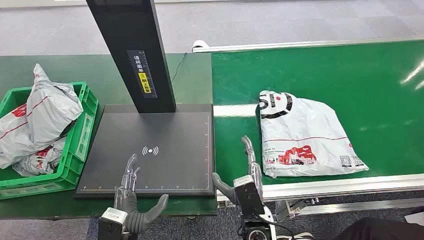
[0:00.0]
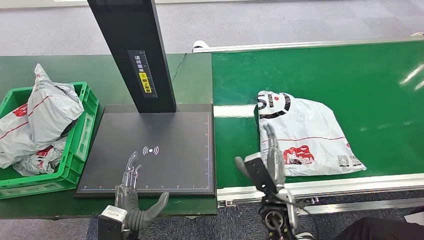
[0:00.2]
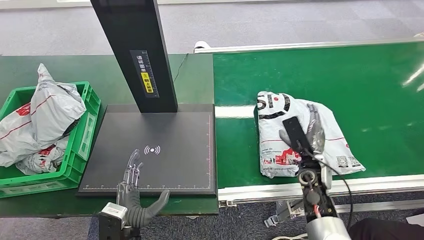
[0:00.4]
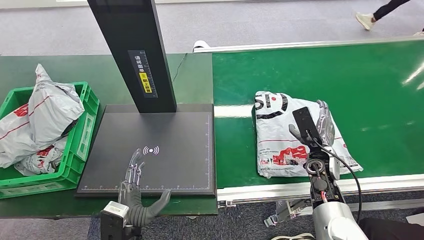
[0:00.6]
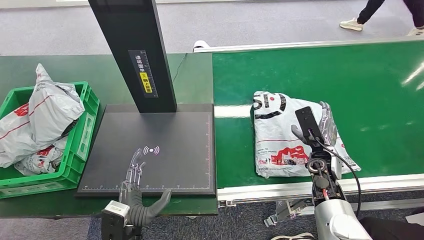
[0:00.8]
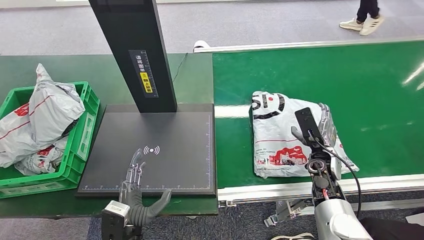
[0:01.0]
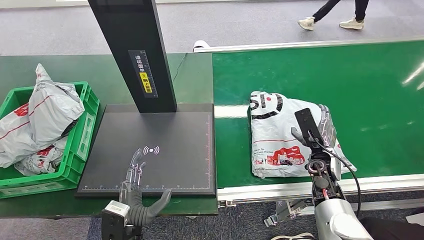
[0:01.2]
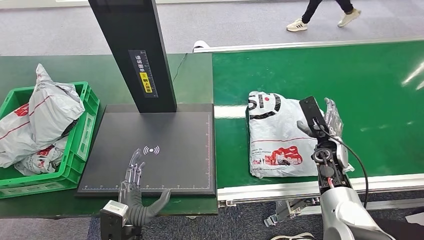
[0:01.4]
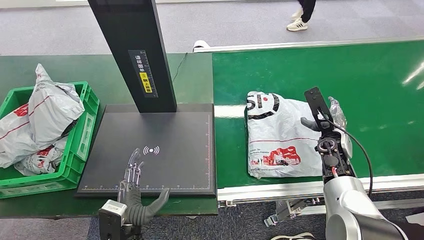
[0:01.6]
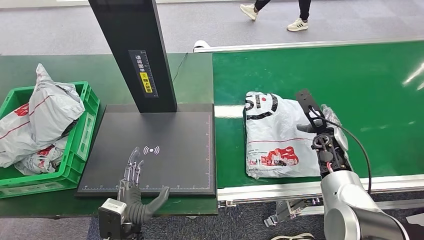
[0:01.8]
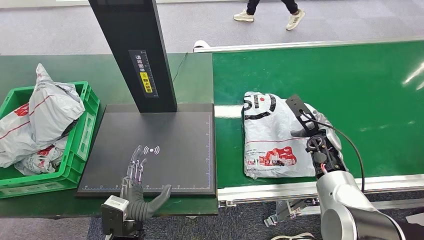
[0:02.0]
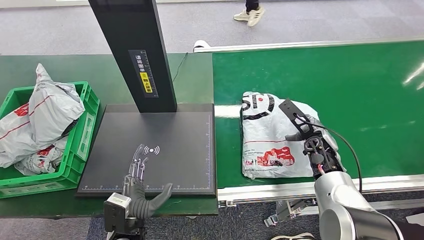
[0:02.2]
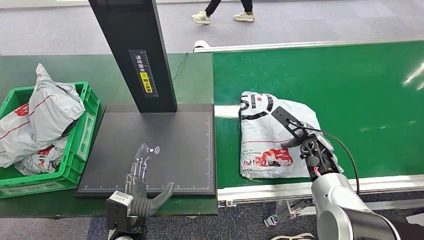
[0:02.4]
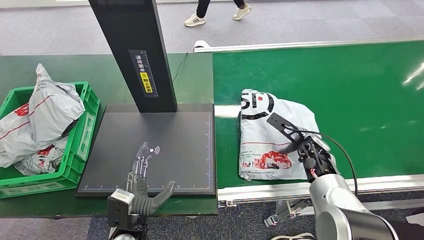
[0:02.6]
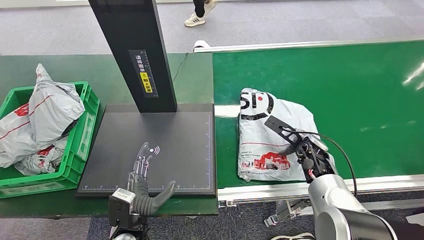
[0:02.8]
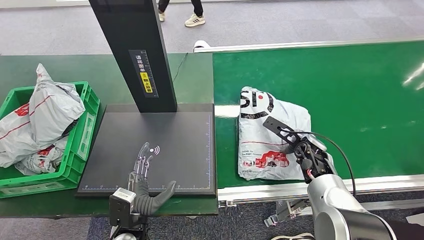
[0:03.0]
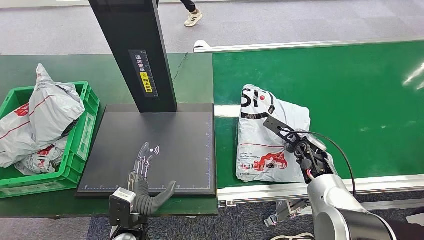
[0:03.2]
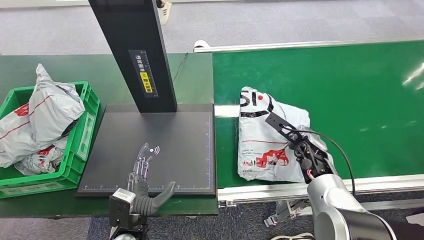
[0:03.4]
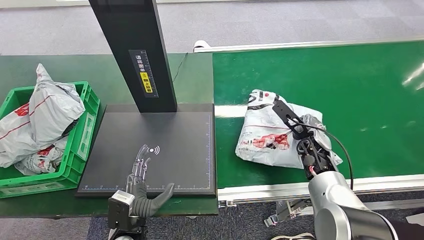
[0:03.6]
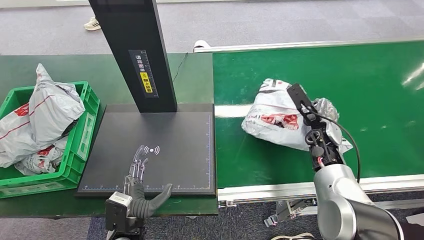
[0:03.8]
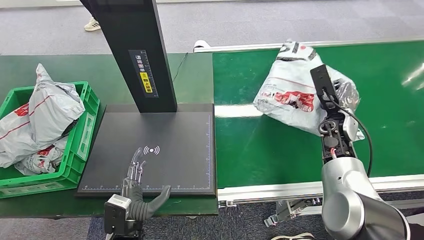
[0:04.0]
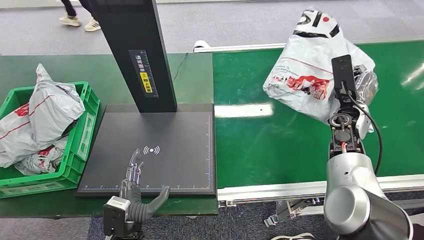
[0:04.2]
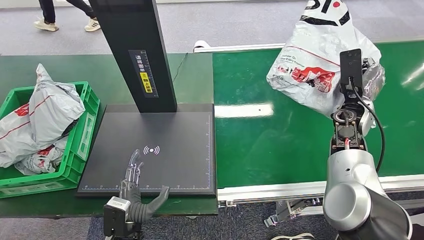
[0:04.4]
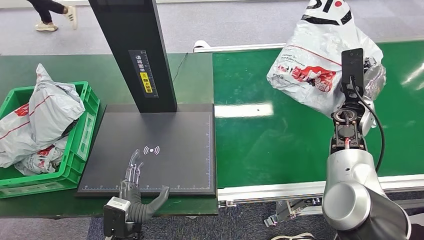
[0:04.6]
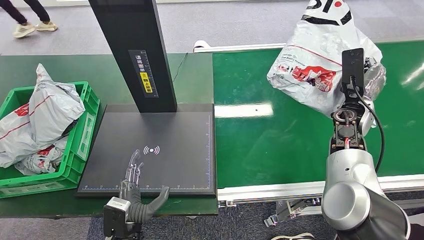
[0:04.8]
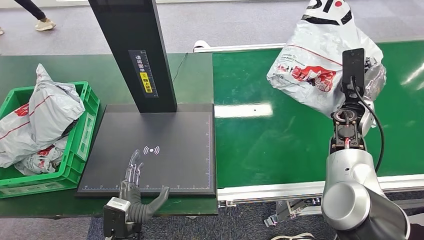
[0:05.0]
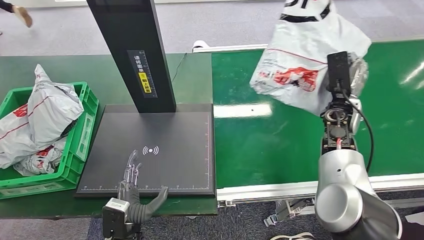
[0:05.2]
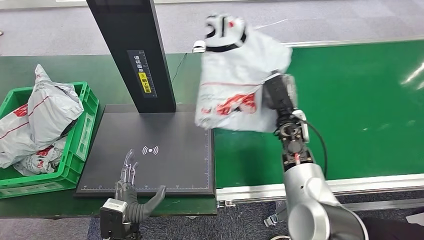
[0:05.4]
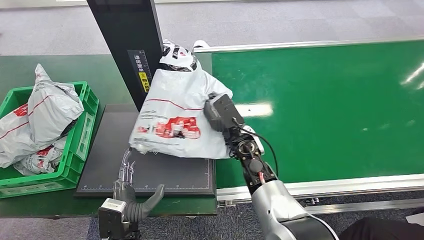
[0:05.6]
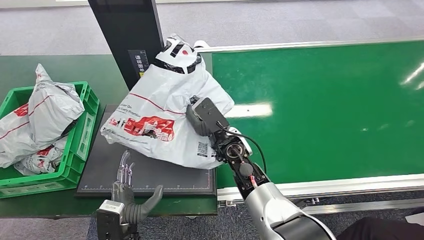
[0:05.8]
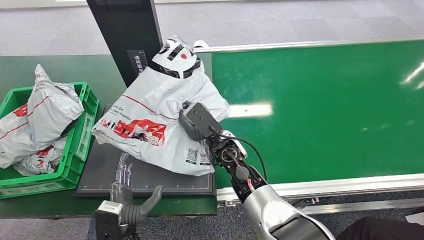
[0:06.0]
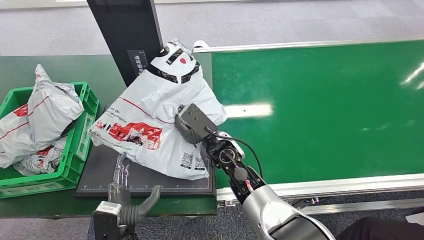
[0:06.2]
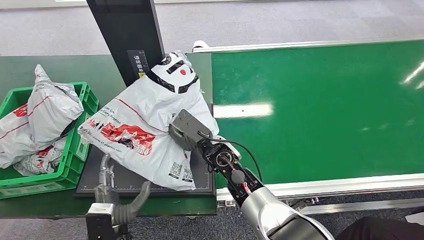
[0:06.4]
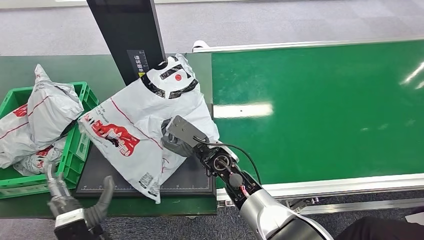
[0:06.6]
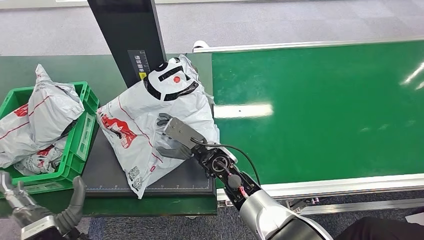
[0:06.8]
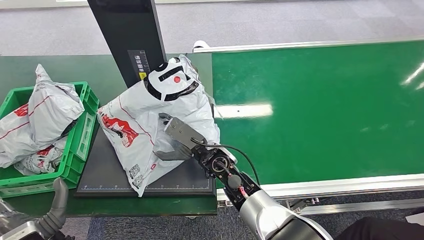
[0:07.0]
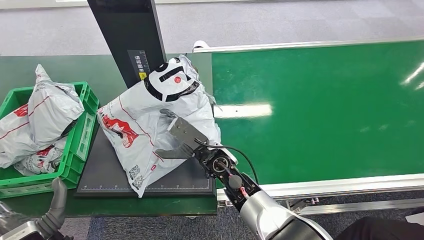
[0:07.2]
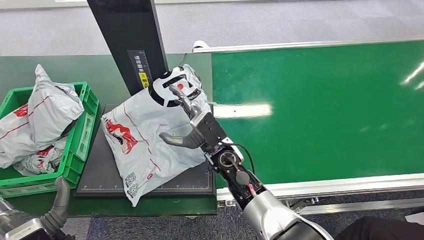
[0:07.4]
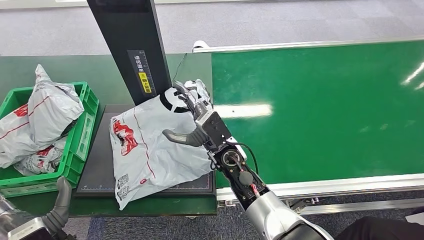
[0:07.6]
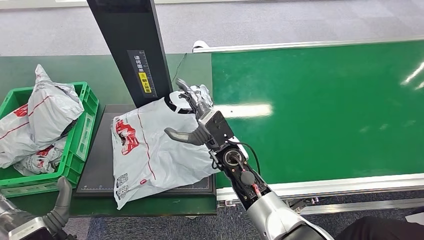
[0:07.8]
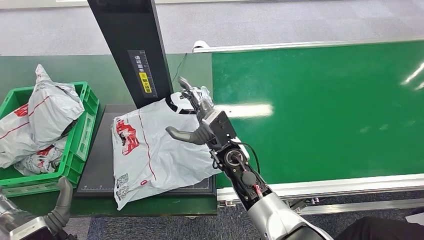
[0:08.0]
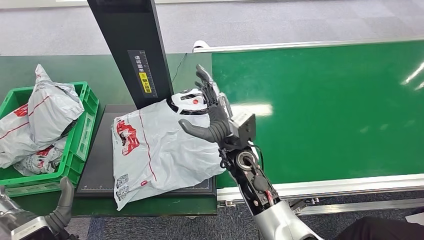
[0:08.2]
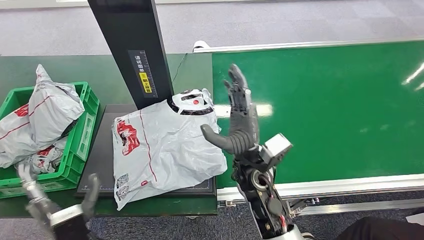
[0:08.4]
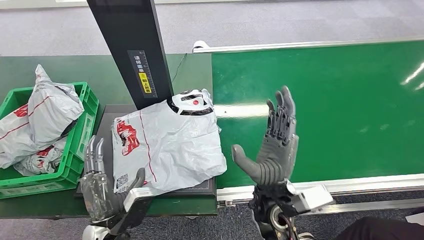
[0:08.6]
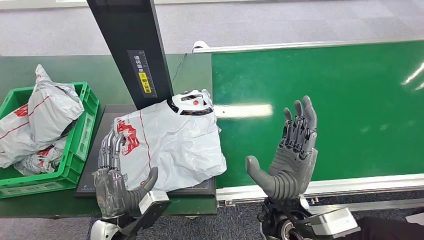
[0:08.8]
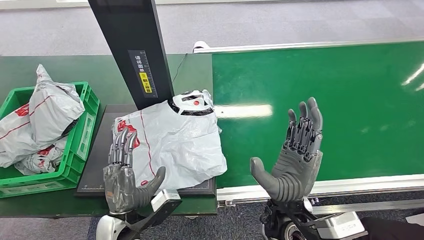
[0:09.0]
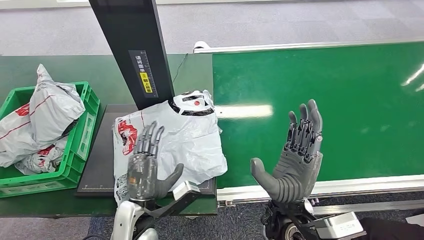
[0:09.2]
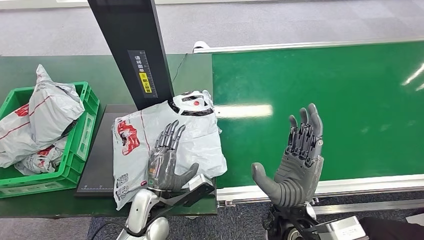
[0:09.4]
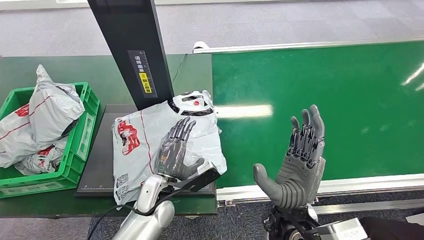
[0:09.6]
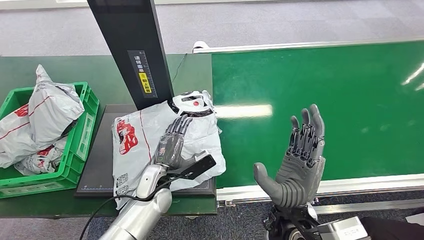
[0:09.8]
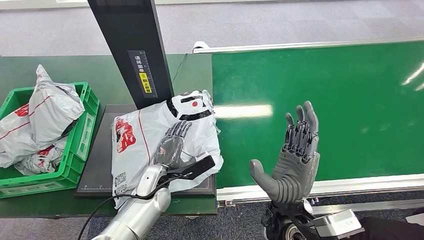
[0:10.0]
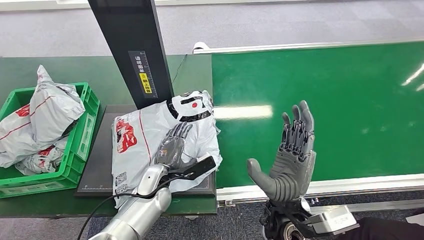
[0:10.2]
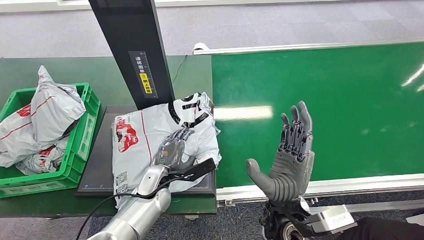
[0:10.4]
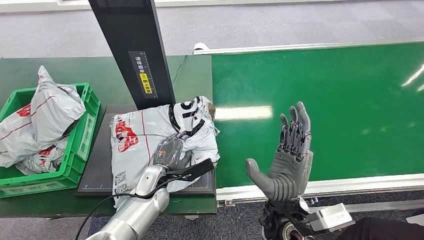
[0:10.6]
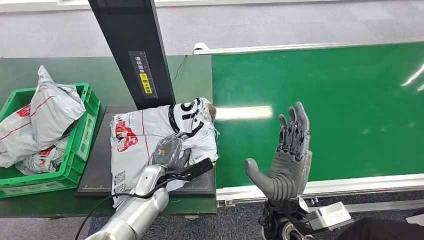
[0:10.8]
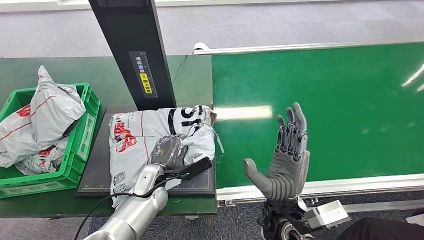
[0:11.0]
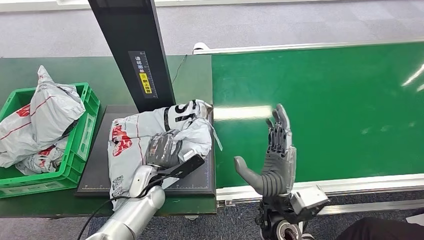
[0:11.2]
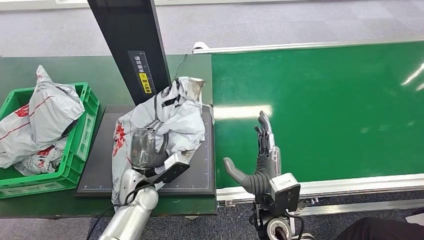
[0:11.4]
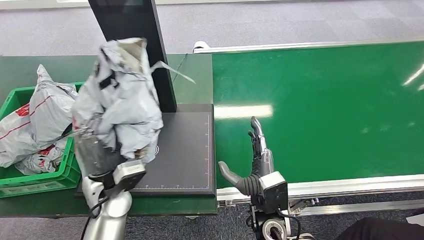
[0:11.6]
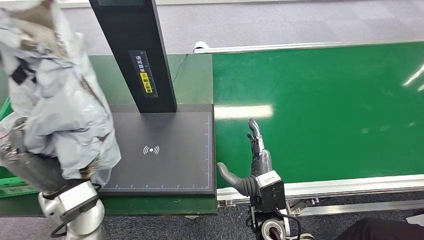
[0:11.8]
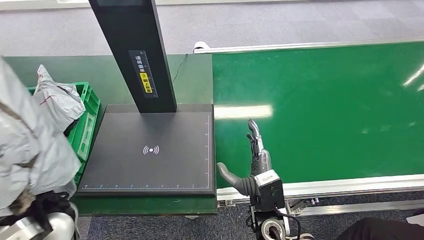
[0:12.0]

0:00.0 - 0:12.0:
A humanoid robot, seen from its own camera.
Step, 0:00.0 - 0:04.2: Pick up the package from the conveyor belt.
Step, 0:04.4 - 0:08.2: Place the package onto the inbound machine.
Step, 0:08.4 - 0:11.8: Pick up the package from the inbound machine.
0:01.6 - 0:03.0: The right hand travels to the left by approximately 5 cm.
0:06.0 - 0:07.6: The left hand heads to the left and upward, covering roughly 10 cm.
0:09.0 - 0:10.4: The left hand heads forward, covering roughly 10 cm.

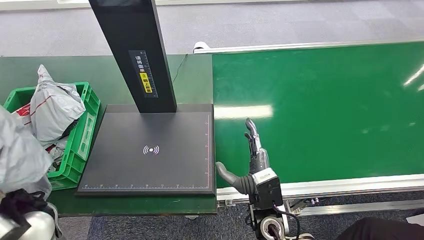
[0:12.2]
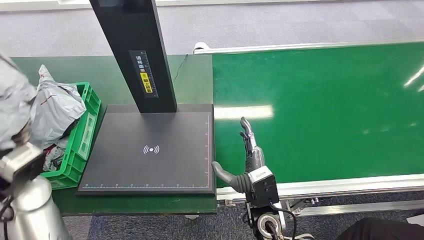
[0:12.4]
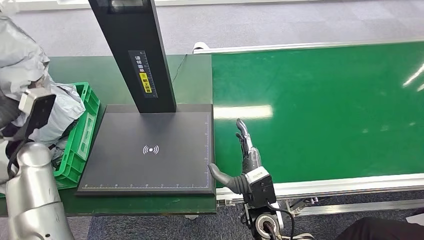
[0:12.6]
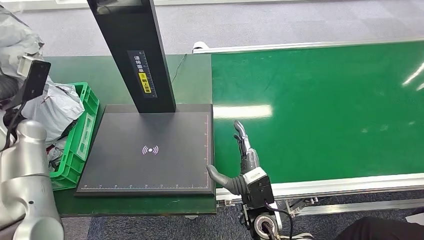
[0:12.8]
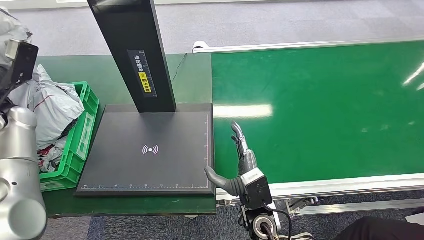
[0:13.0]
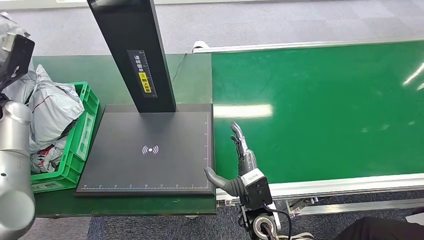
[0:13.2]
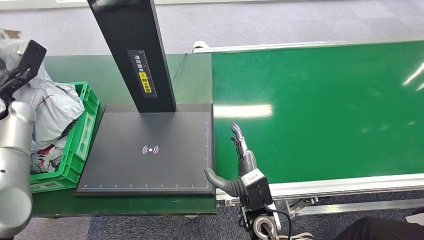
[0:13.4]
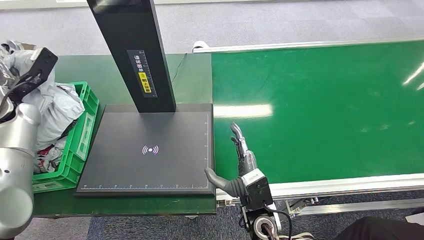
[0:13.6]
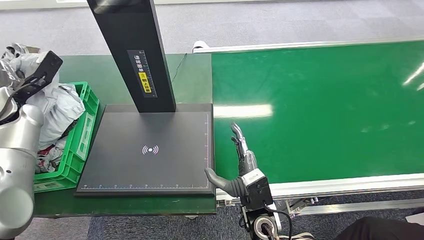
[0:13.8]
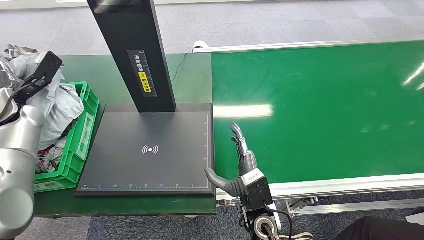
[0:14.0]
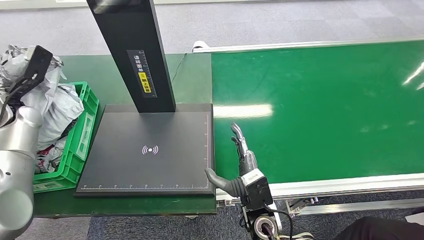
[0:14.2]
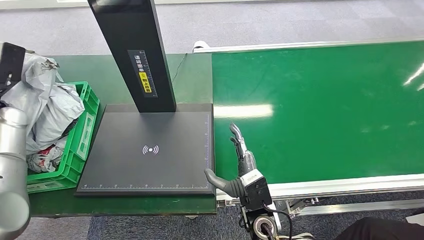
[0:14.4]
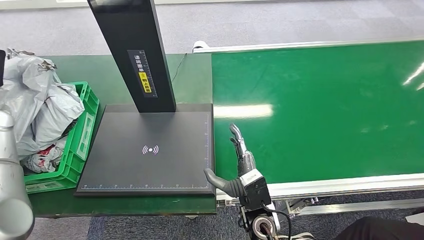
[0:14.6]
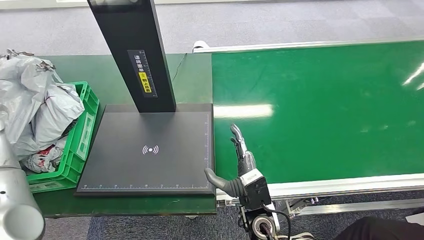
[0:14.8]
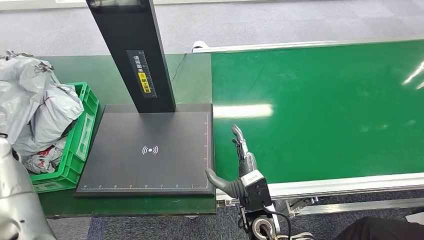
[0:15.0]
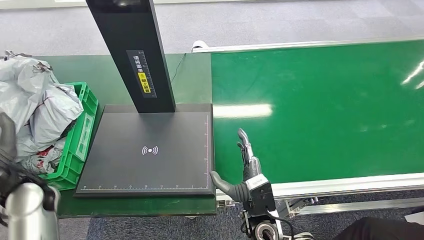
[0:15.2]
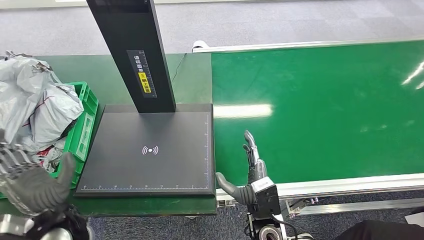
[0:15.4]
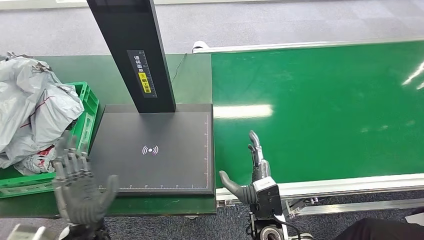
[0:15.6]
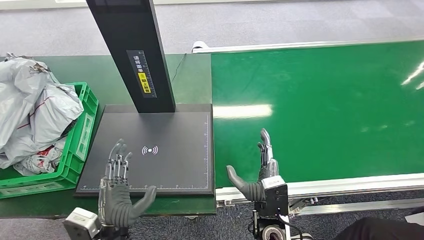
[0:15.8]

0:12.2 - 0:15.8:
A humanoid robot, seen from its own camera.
Step, 0:12.2 - 0:15.8: Place the package into the parcel locker.
0:12.2 - 0:14.0: The left hand goes about 25 cm forward and to the left.
0:14.0 - 0:15.8: The left hand travels backward, to the right and downward by about 40 cm.
